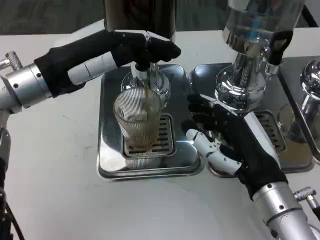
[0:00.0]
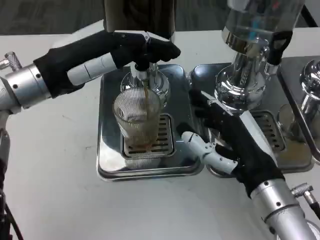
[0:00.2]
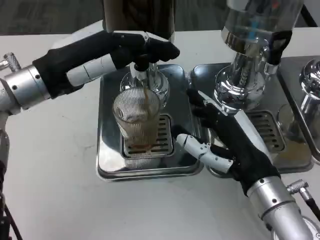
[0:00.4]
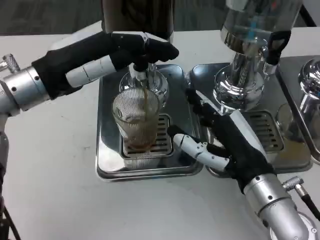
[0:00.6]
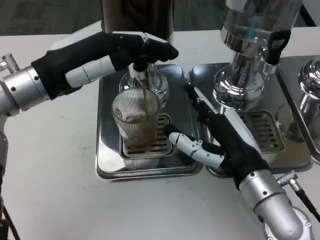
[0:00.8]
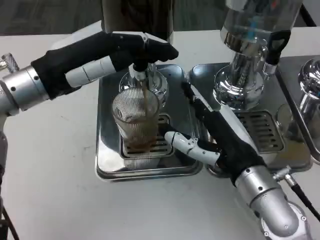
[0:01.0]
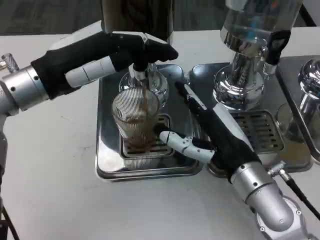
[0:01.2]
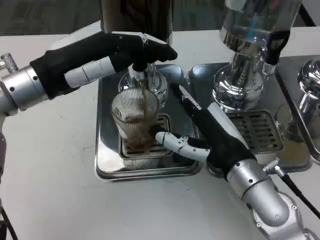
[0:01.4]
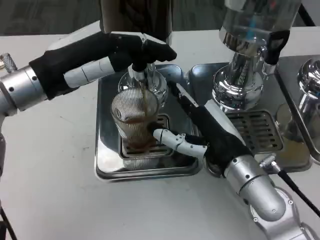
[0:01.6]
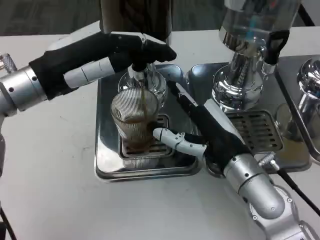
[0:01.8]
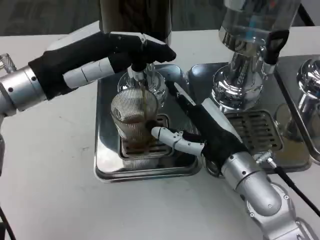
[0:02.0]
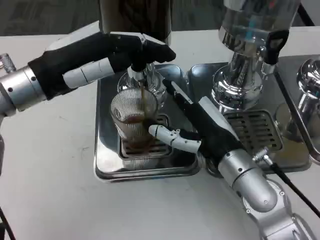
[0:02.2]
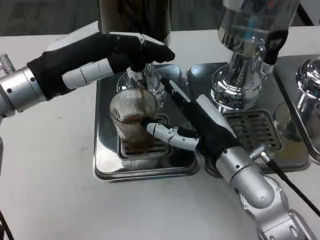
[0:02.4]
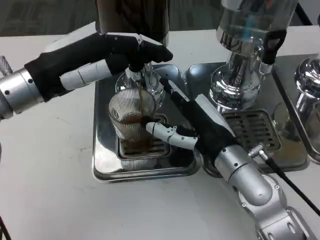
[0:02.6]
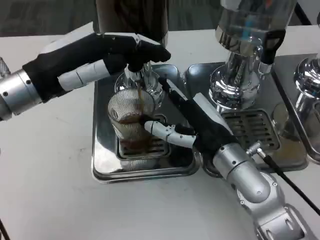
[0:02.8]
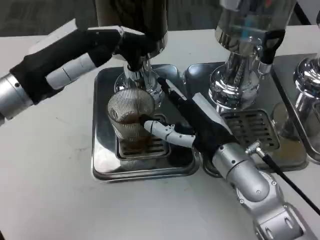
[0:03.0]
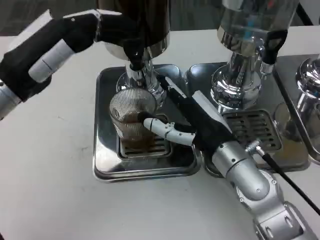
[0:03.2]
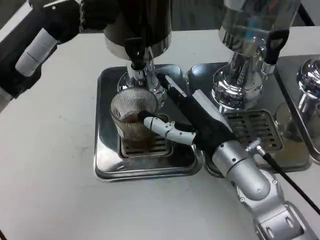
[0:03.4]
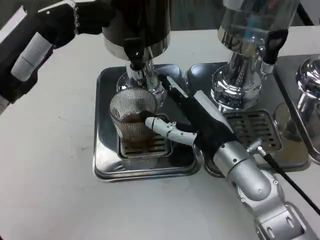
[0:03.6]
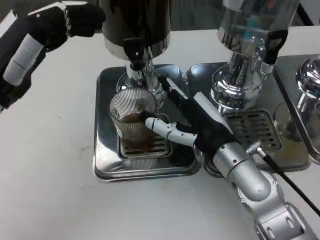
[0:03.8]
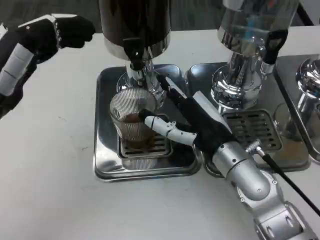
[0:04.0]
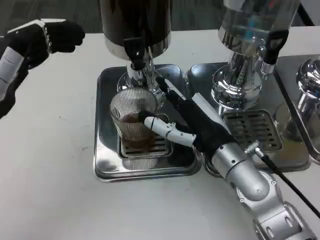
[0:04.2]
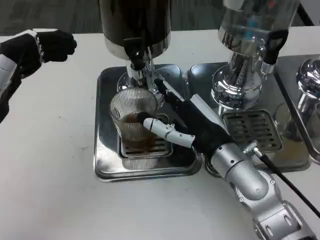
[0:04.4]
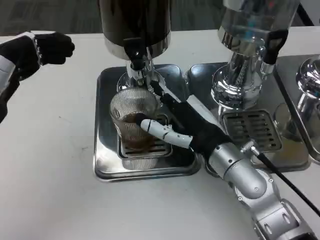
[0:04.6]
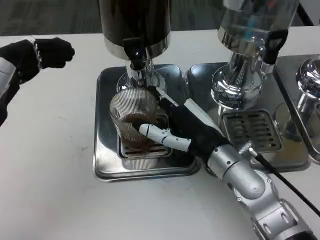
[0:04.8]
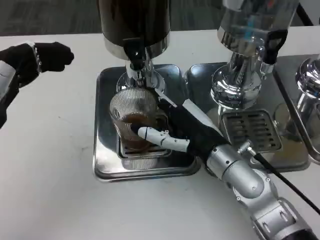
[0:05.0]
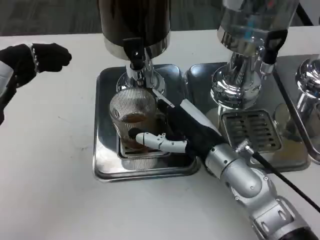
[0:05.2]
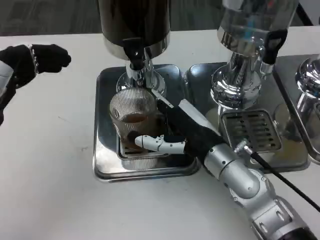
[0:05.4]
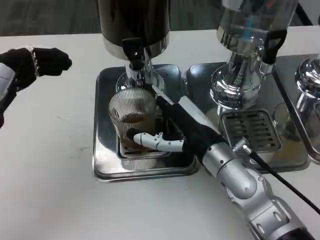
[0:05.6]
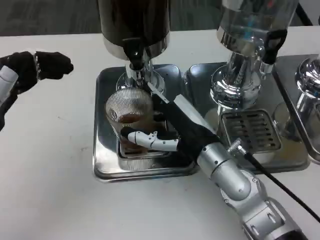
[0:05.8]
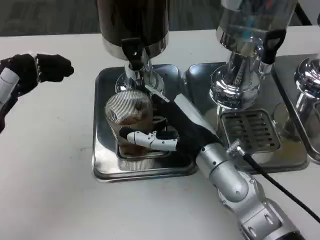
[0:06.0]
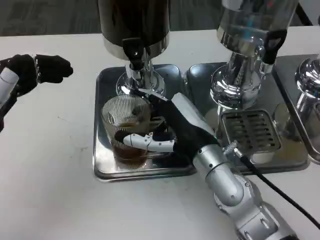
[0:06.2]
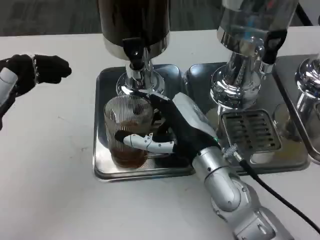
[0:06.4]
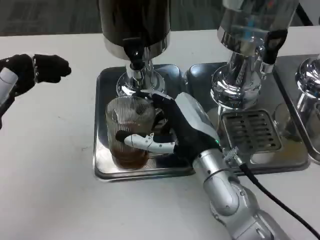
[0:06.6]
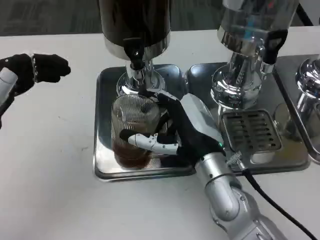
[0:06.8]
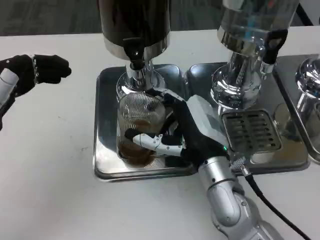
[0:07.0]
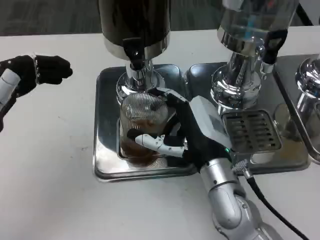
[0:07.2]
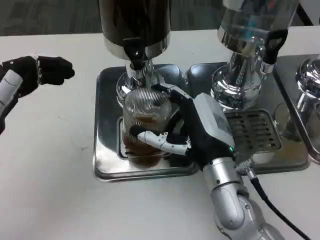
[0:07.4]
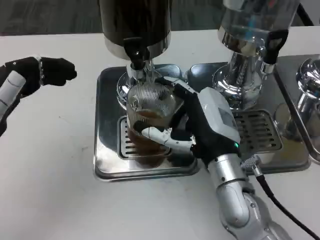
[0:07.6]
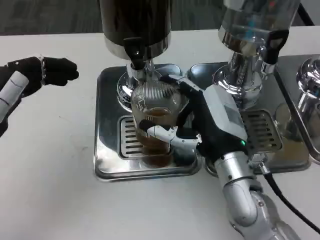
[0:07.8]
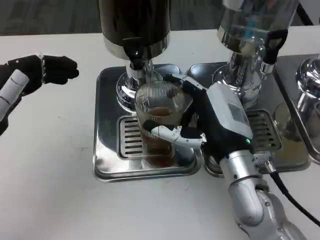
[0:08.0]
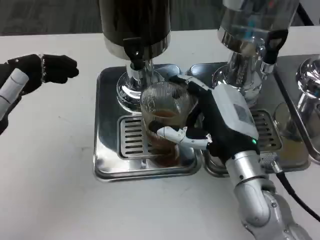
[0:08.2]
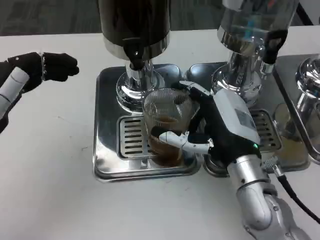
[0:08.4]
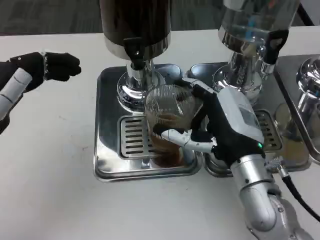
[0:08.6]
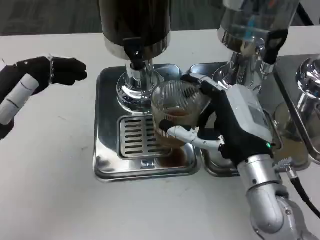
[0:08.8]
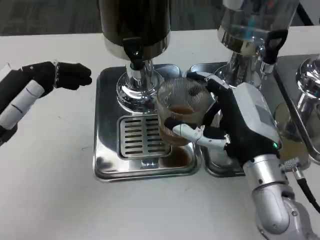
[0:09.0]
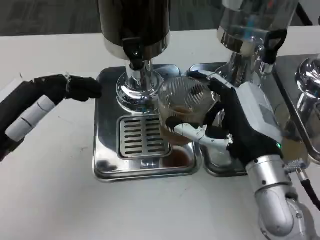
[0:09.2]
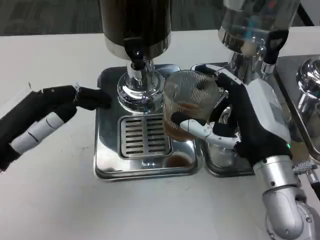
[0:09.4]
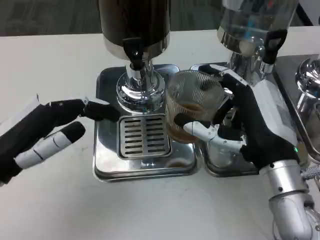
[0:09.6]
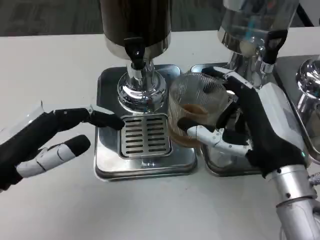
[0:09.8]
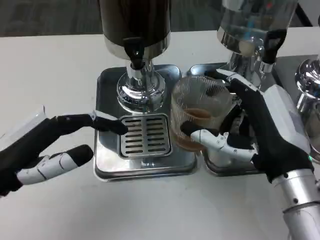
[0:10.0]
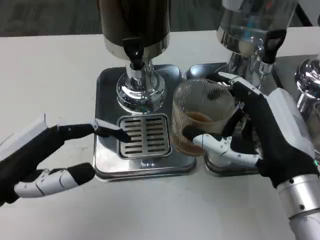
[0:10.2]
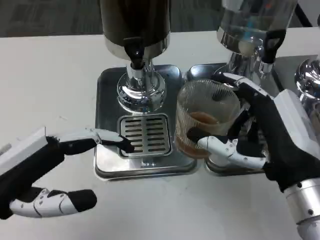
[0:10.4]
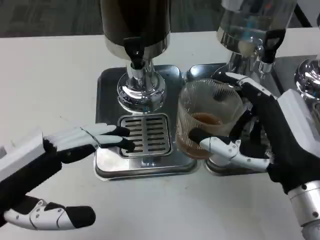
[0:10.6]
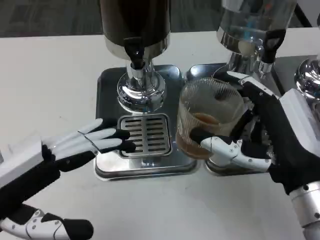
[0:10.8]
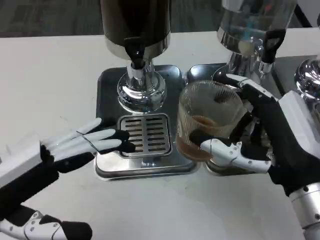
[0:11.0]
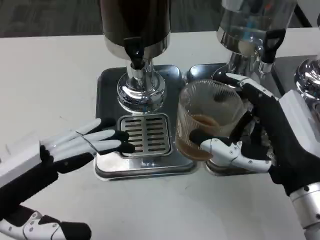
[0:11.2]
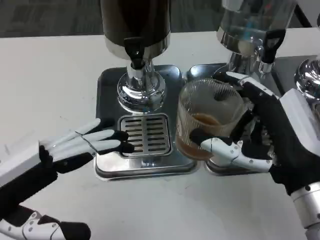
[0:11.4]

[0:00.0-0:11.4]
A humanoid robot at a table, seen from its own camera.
Task of the whole recording: Grasp the cup under the faucet to collect the drink, then remove the cup.
0:02.8 to 0:04.2: The left hand travels to the left by approximately 5 cm.
0:05.6 to 0:07.2: The hands make only small movements.
0:08.6 to 0:10.0: The left hand travels backward by approximately 5 cm. Meanwhile the right hand shifts by roughly 5 cm.
0:10.0 to 0:11.4: The left hand shifts by some 5 cm.

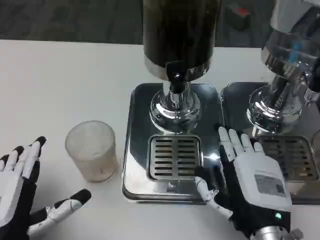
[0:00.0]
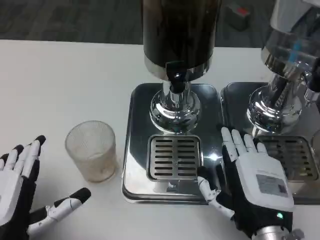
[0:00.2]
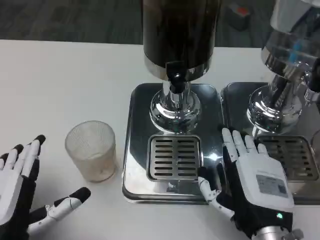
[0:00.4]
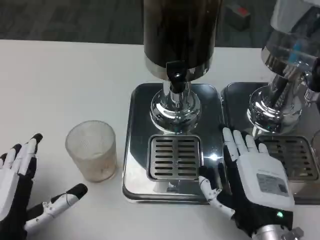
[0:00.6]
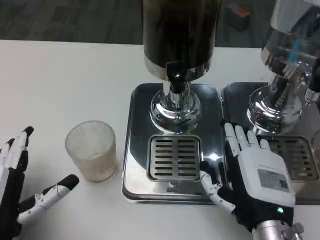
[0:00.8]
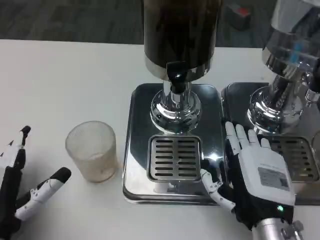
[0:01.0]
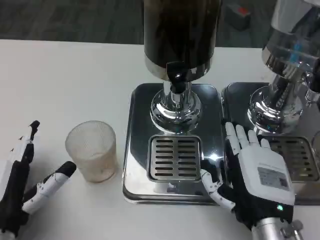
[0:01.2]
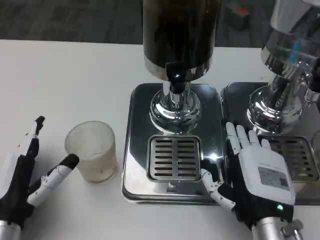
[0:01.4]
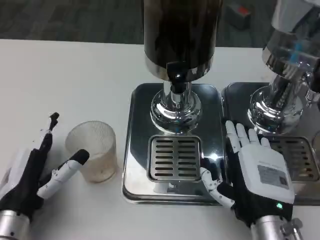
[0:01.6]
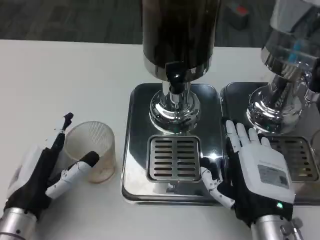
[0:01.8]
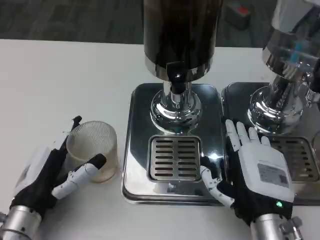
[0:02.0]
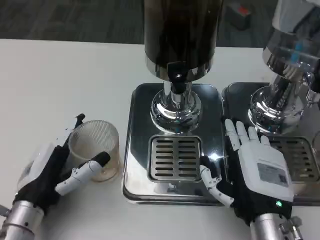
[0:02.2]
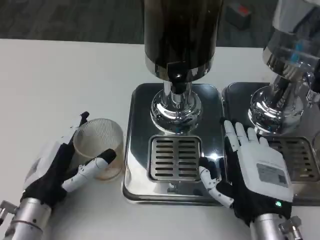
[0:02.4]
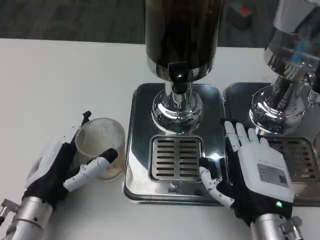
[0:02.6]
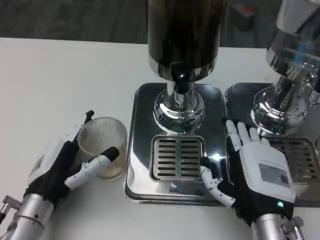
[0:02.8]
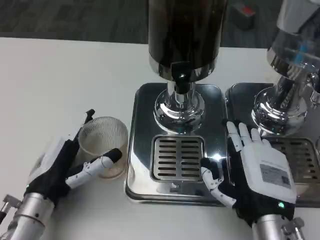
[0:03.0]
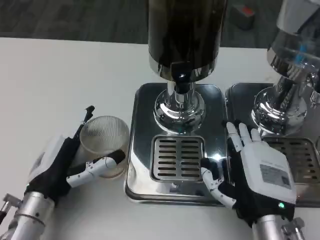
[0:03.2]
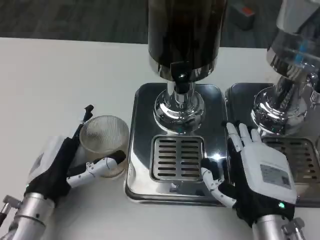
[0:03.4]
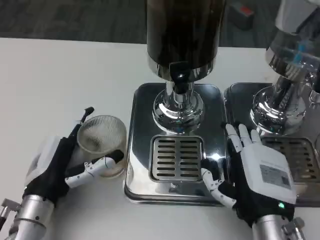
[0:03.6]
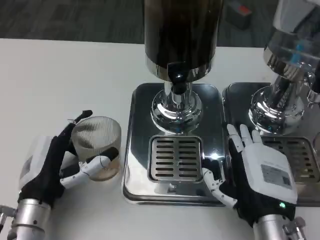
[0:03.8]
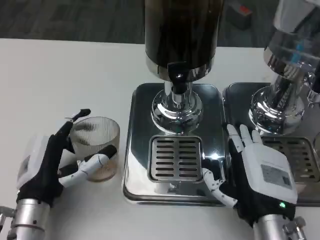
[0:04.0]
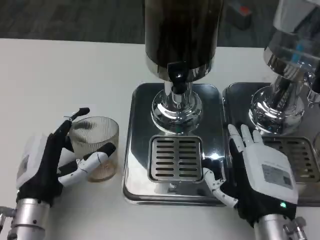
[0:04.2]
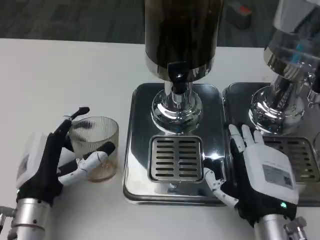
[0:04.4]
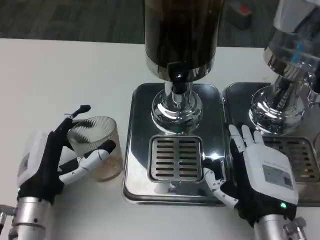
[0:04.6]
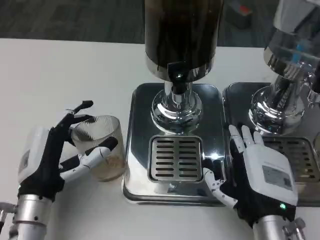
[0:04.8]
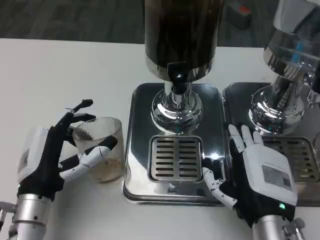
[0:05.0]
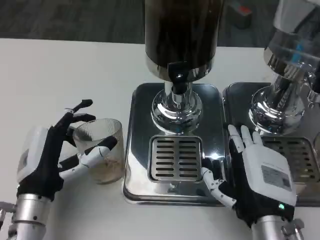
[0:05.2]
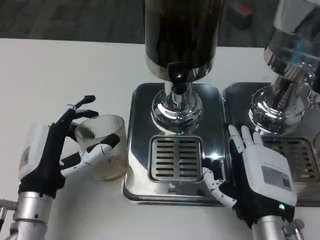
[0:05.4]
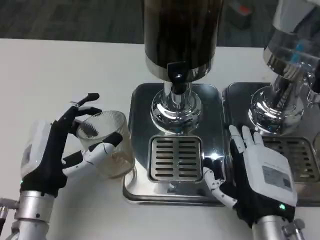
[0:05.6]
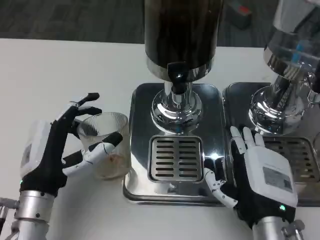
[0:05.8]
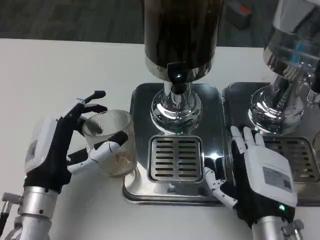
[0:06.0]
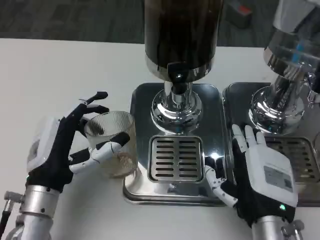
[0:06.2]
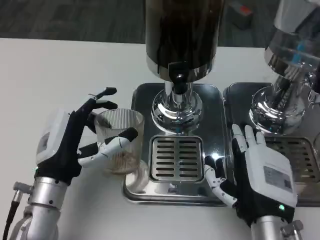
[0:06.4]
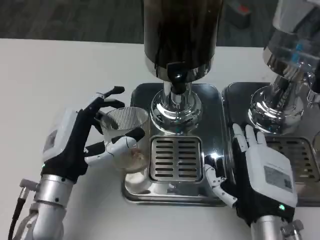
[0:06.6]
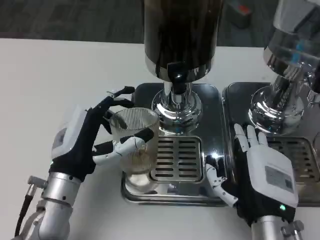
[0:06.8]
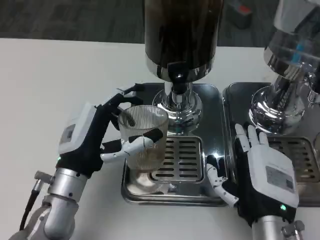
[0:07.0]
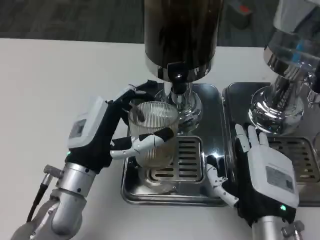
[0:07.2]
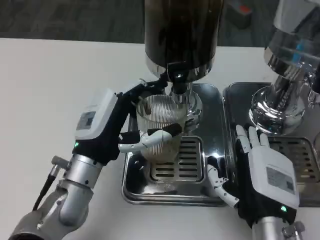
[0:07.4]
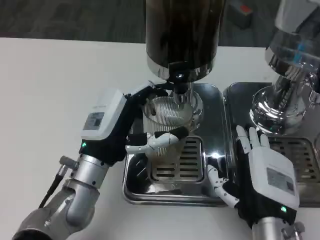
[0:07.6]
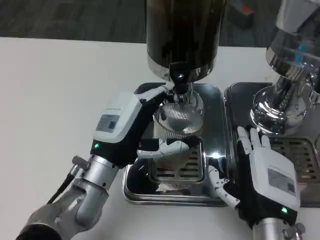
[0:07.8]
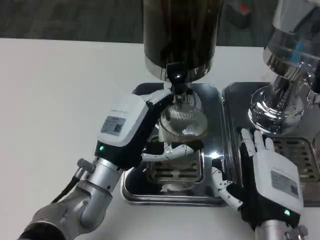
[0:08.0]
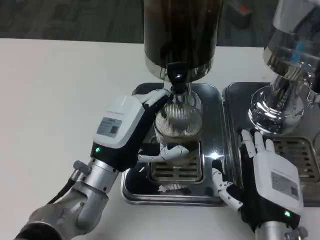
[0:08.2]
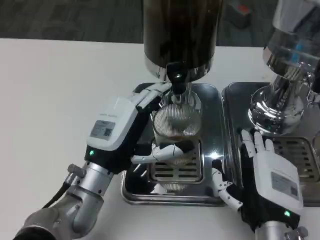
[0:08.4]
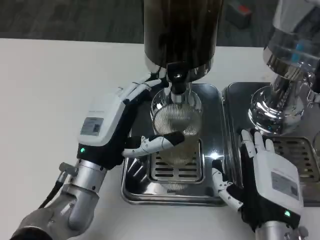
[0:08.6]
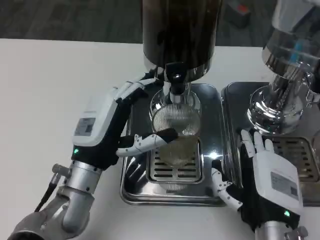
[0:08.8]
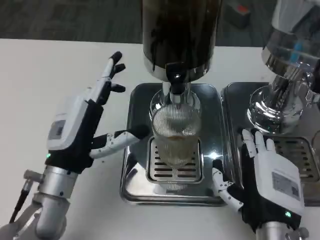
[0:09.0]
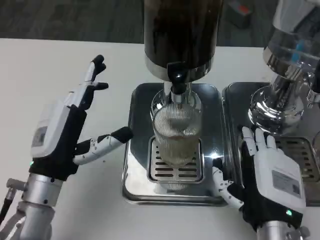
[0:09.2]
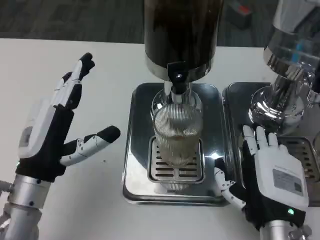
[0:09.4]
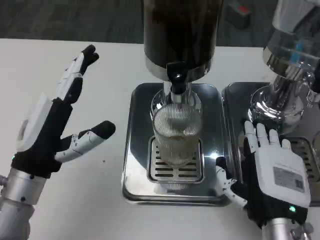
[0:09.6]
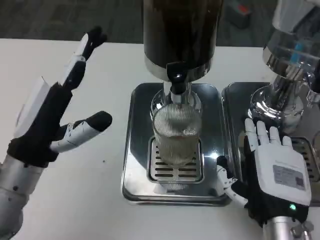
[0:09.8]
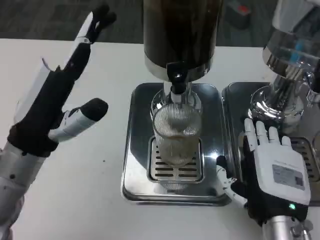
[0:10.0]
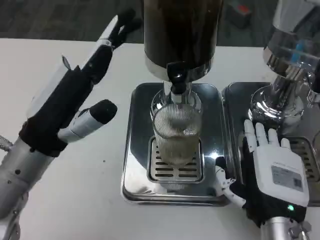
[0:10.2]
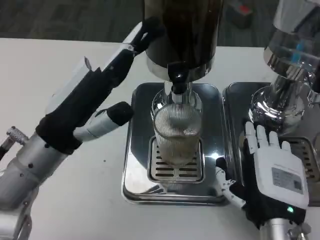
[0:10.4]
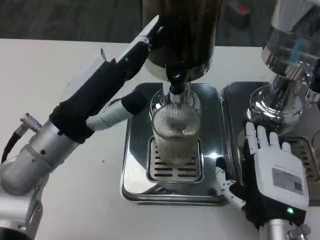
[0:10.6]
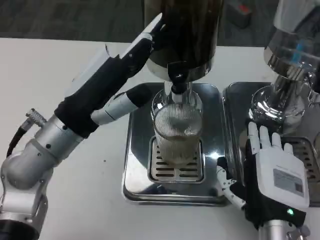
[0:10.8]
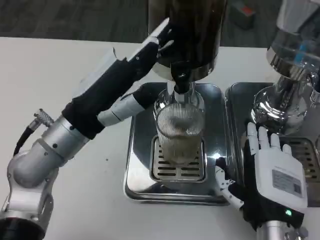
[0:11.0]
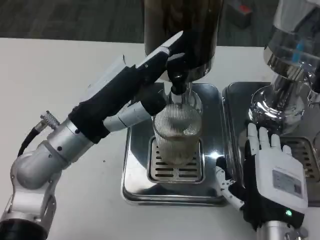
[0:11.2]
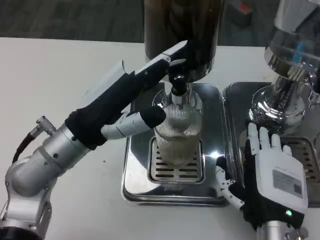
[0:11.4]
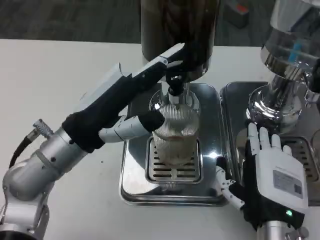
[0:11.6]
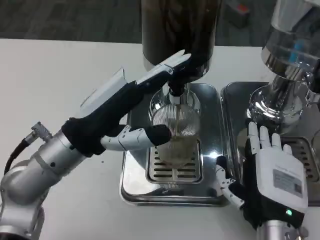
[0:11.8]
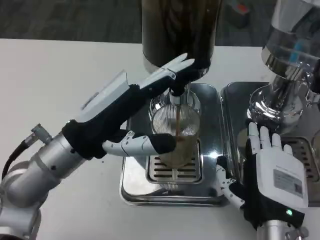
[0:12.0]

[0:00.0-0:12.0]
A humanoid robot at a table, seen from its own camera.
Task of the whole recording: Grasp the cup under the faucet to collect the drink, then remove the cup.
0:00.0 to 0:01.6: The left hand is displaced forward by about 5 cm.
0:04.4 to 0:06.0: The hands make only small movements.
0:06.0 to 0:07.6: The left hand shifts approximately 5 cm to the right.
0:09.0 to 0:10.4: The left hand goes some 10 cm upward.
